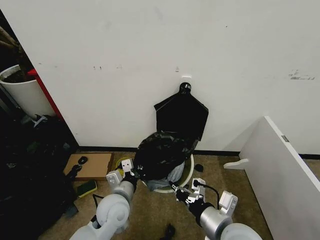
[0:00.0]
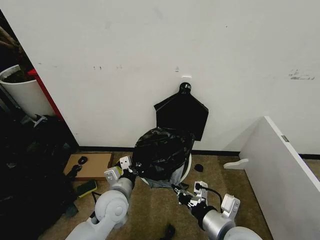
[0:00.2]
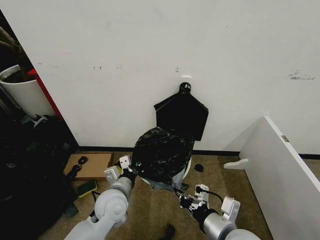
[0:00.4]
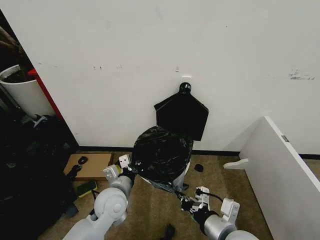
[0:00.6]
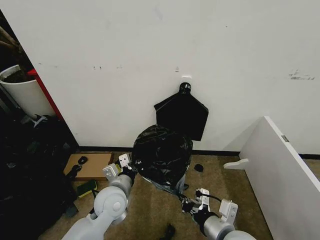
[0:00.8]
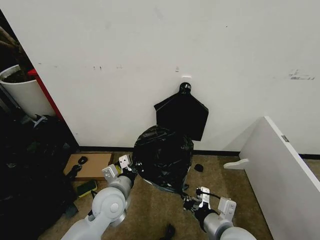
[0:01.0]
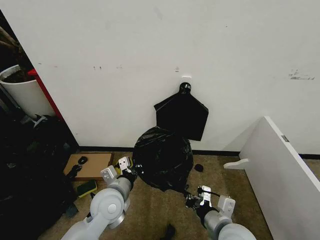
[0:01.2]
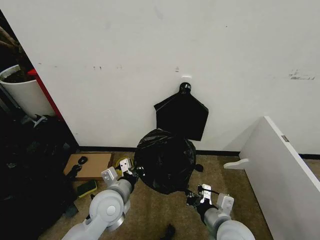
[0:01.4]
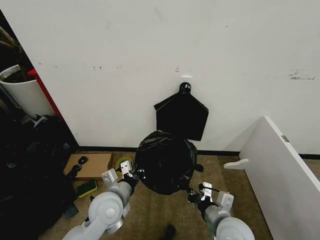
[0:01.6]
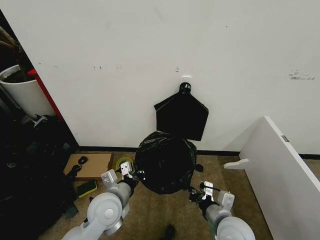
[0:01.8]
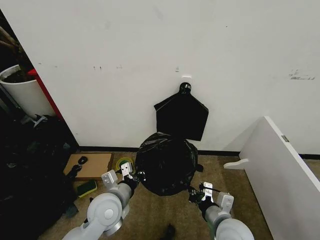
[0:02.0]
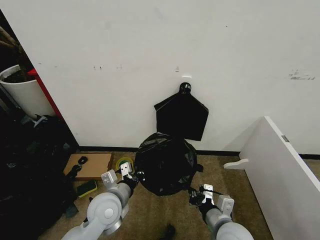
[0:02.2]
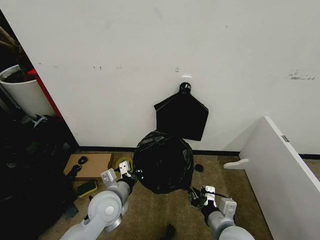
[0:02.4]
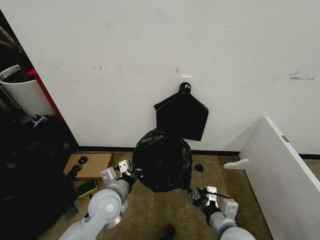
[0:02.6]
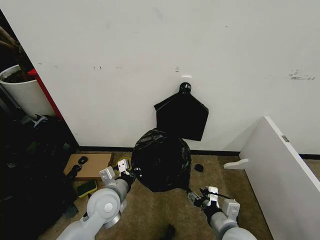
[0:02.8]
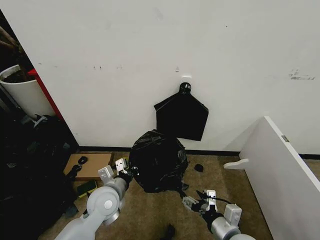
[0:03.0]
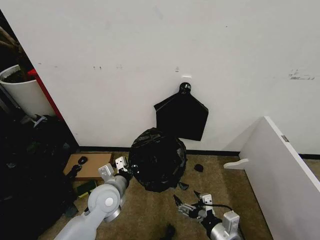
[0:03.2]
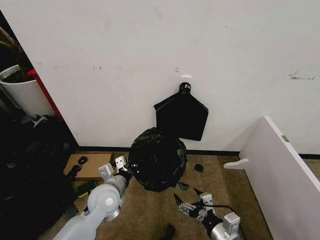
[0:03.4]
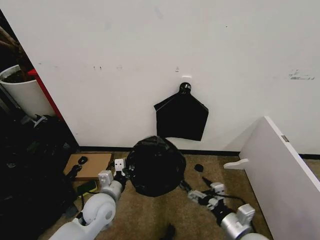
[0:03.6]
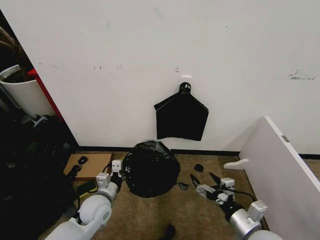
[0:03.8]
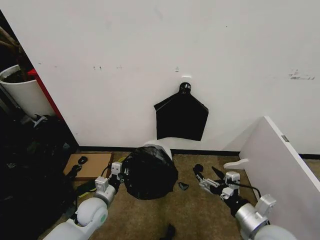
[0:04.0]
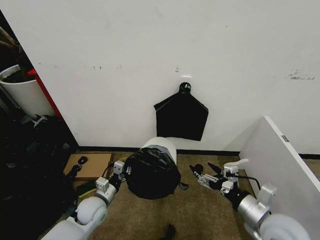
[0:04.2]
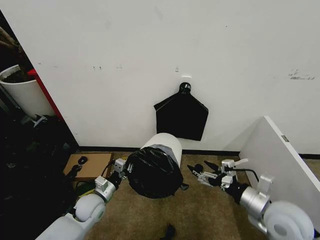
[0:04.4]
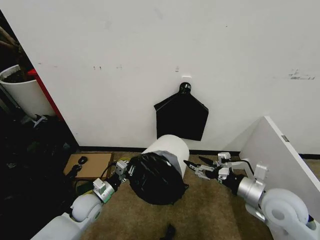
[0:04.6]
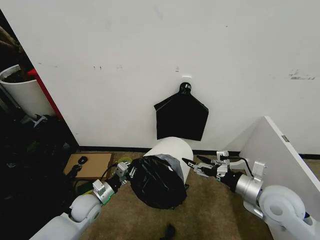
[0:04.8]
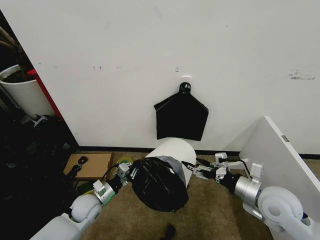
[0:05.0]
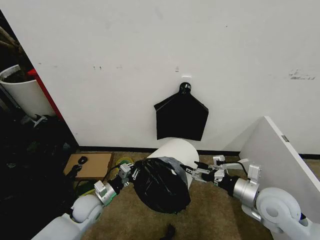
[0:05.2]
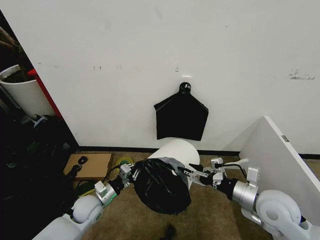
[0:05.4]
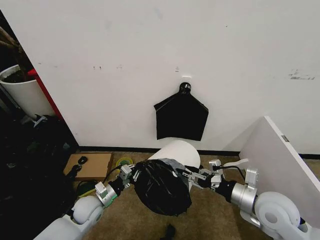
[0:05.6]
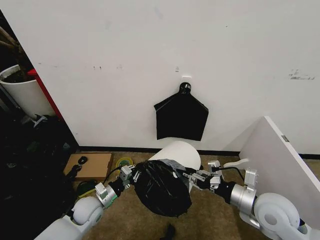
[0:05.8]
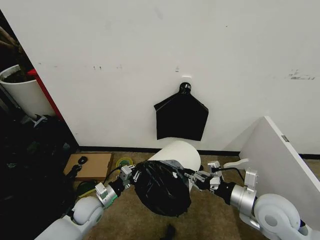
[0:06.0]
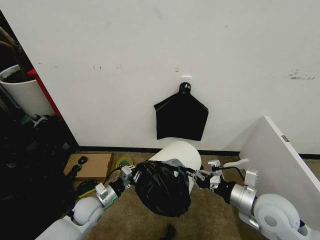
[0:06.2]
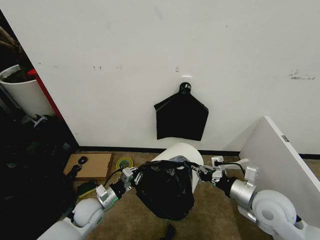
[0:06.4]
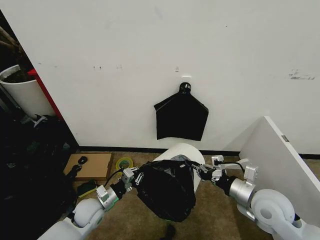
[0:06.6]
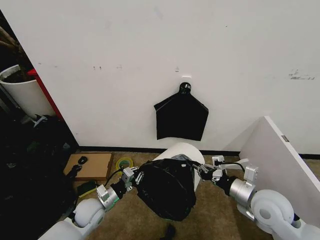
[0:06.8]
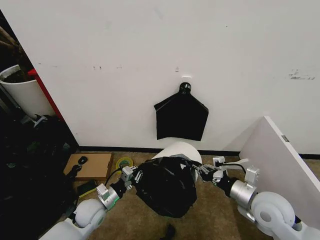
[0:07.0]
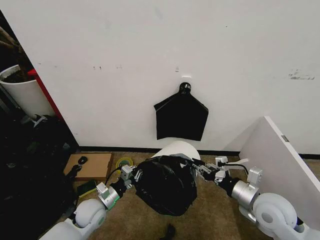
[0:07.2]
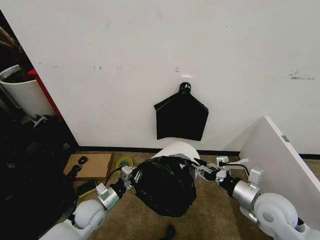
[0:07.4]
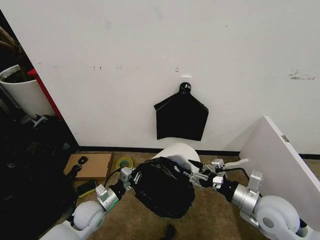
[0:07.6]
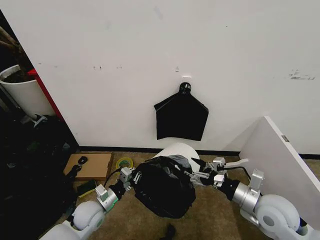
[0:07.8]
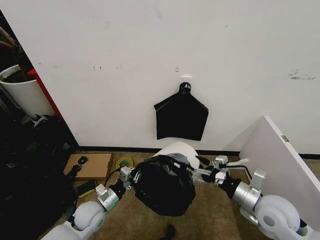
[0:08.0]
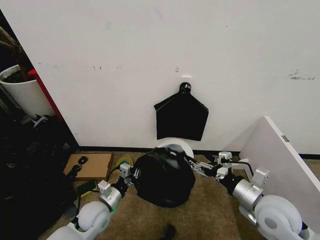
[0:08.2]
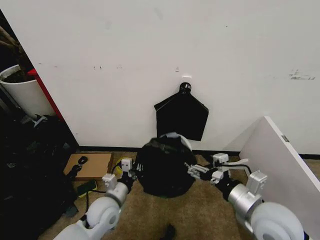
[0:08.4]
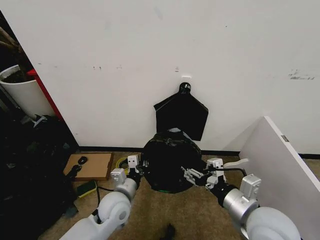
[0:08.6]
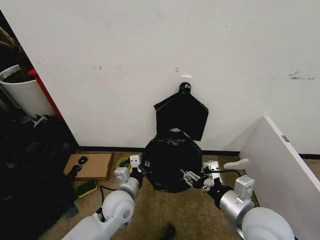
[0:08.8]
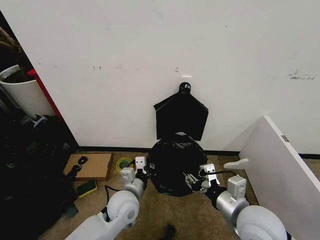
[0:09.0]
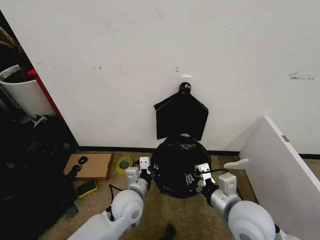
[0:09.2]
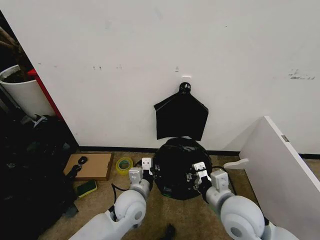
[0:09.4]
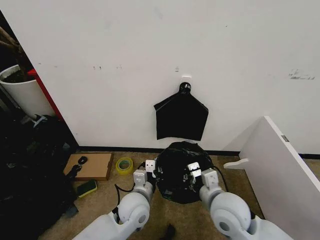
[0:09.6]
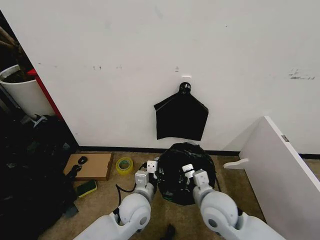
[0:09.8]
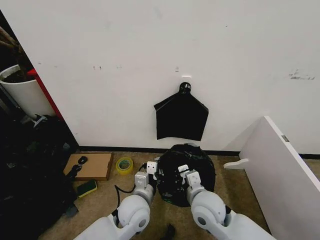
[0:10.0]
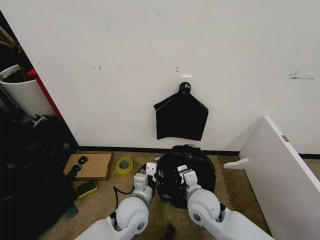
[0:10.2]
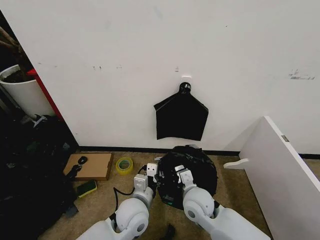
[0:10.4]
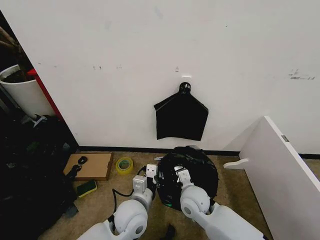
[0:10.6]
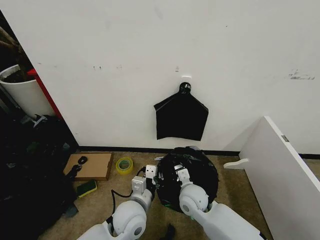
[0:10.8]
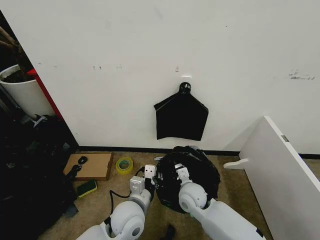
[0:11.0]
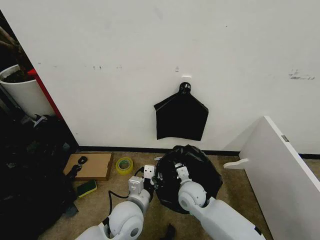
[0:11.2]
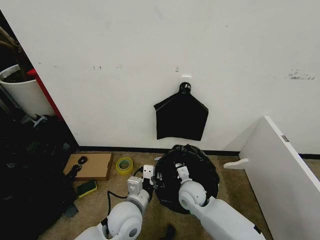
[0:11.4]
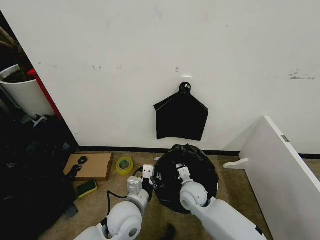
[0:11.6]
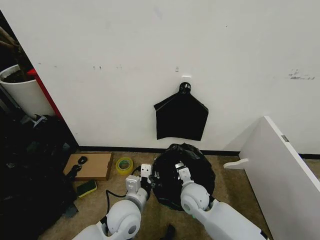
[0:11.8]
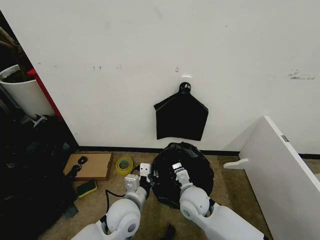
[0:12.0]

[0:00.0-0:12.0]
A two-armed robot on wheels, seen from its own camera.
Task of the whole recording: Place the garbage bag over the trash bin.
0:00.0 to 0:01.6: The right gripper moves downward, some 10 cm.
0:01.6 to 0:03.0: The right gripper opens up.
0:03.0 to 0:04.4: The left gripper shifts roughly 15 cm downward and to the left. The right gripper heads to the right, upward and forward, covering roughly 15 cm.
0:04.4 to 0:06.0: The right gripper closes its fingers.
0:06.0 to 0:07.6: The right gripper opens.
0:07.6 to 0:09.0: The right gripper goes approximately 10 cm to the left, and closes; the left gripper shifts roughly 15 cm to the right and upward.
0:09.0 to 0:10.4: The right gripper goes approximately 15 cm to the left, downward and forward.

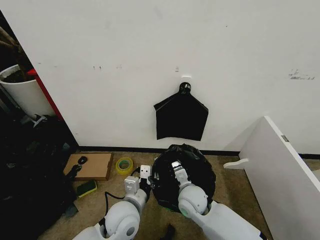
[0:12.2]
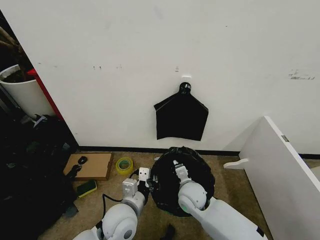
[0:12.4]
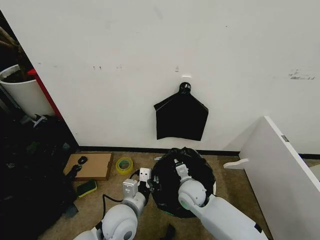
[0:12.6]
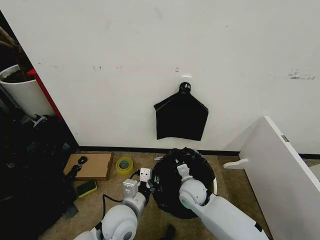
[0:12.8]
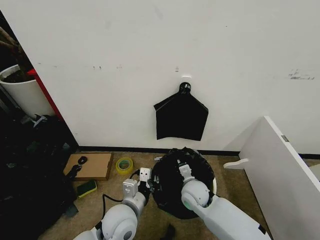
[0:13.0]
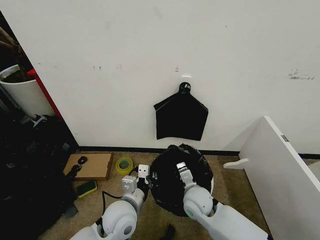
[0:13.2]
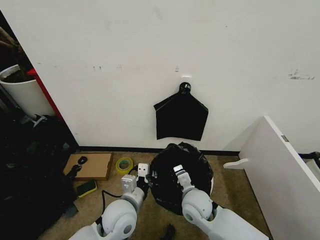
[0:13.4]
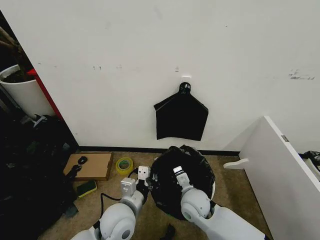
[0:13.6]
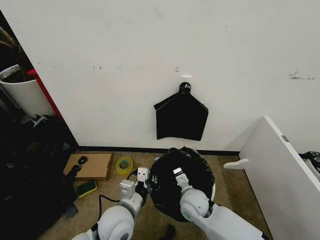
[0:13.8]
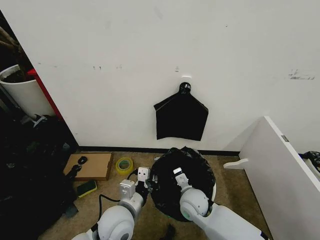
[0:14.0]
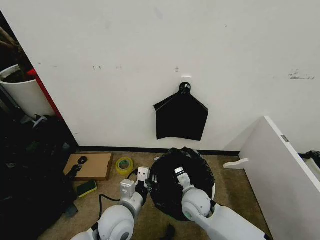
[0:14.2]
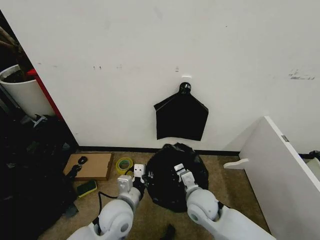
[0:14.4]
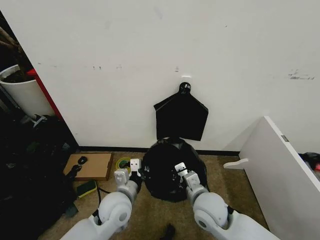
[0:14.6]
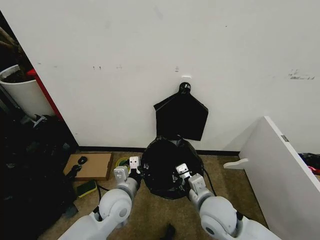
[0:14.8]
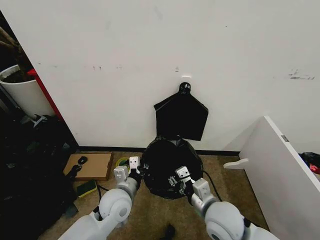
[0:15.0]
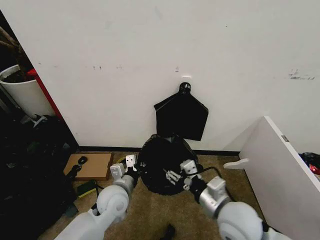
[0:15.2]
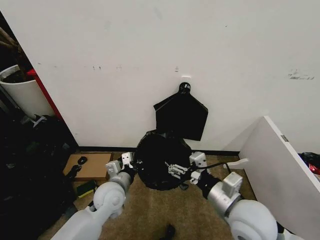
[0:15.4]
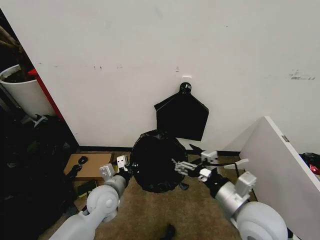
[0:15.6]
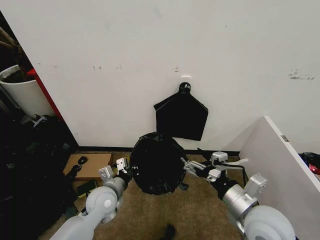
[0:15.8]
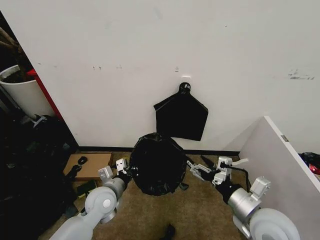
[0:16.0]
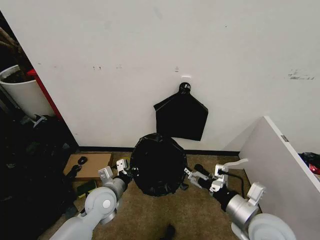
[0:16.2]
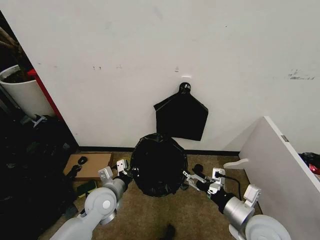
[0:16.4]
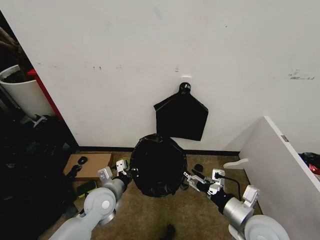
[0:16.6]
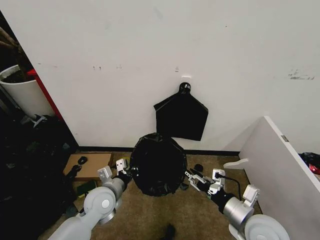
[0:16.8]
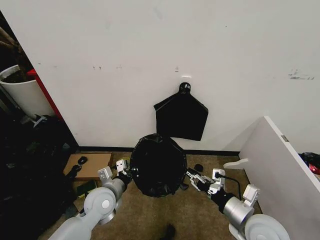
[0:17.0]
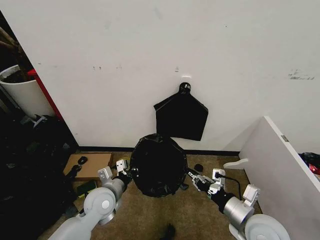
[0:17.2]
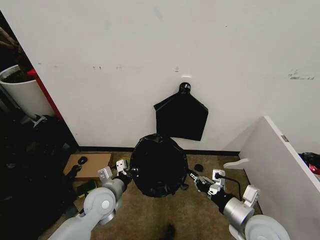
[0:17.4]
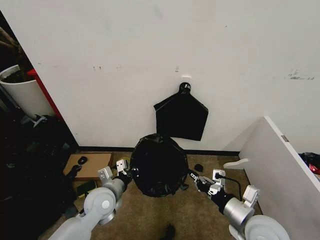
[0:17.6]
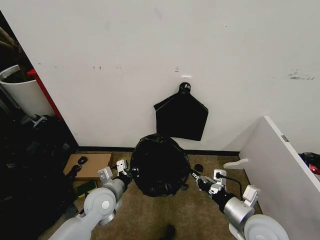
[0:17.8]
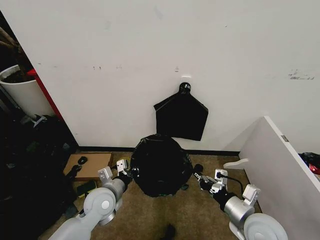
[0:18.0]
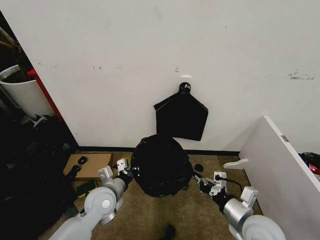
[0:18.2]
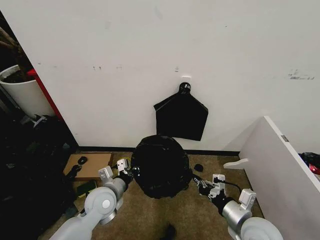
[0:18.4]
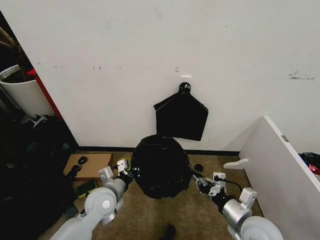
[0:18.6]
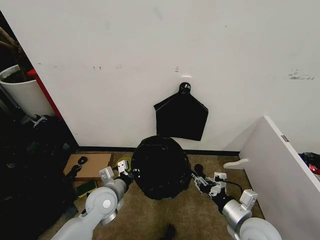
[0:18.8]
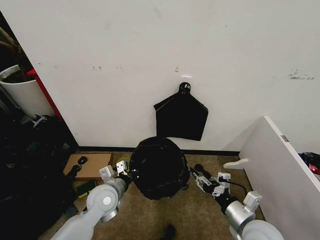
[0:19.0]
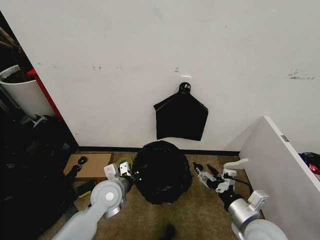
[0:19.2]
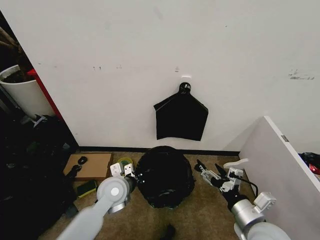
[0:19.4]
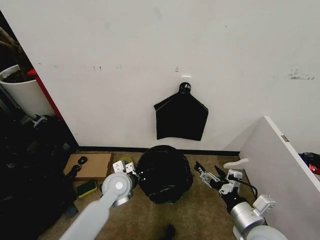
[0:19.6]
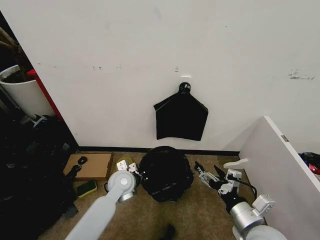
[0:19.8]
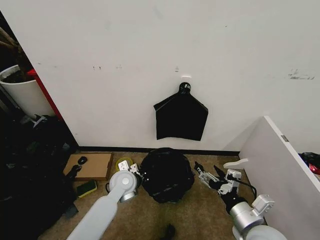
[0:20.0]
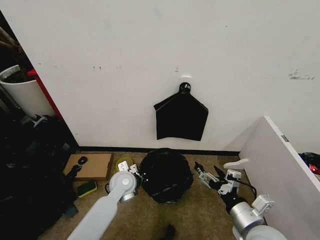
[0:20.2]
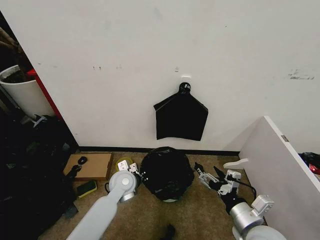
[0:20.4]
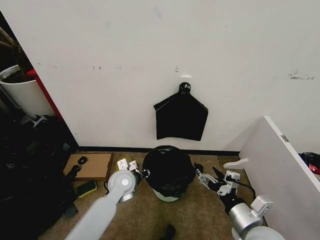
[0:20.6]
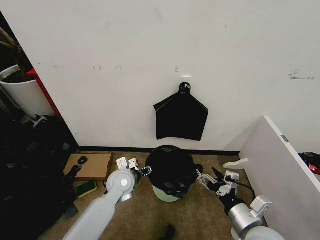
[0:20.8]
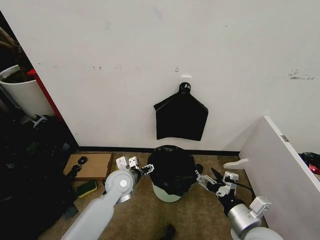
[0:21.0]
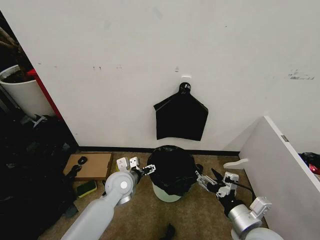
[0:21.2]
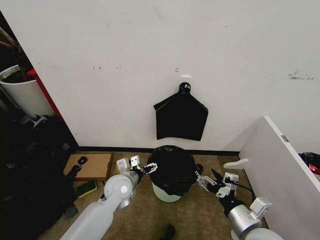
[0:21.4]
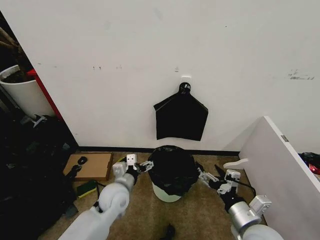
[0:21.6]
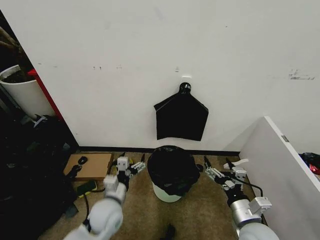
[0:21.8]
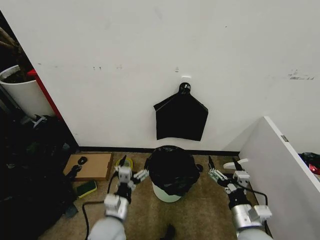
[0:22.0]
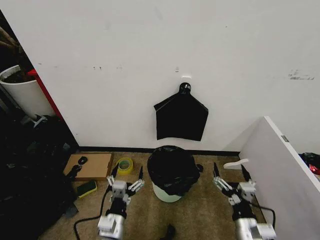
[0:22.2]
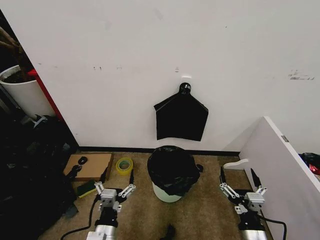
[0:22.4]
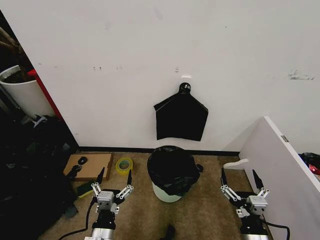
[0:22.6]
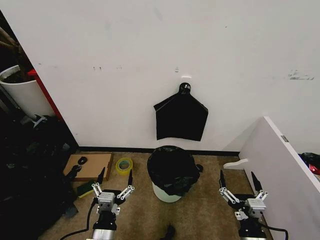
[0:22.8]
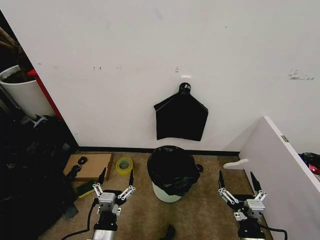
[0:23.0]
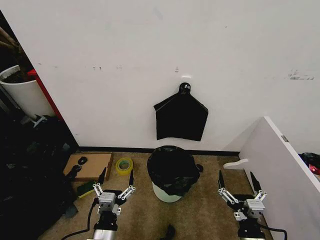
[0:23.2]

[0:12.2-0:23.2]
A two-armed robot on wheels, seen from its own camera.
Task of the whole recording: Place the garbage bag over the trash bin.
0:12.2 to 0:13.8: The grippers move only a little.
0:13.8 to 0:15.4: The left gripper goes about 10 cm forward. Meanwhile the right gripper heads upward, to the right and backward, covering roughly 20 cm, and opens up.
0:15.4 to 0:17.0: The right gripper moves downward and to the right, roughly 10 cm, and closes.
0:17.0 to 0:18.4: The right gripper closes up.
0:18.4 to 0:20.0: The left gripper is displaced forward and to the right by approximately 10 cm, while the right gripper opens up.
0:20.0 to 0:21.6: The left gripper moves backward, approximately 5 cm, and opens.
0:21.6 to 0:23.2: The right gripper heads backward and downward, covering roughly 10 cm. Meanwhile the left gripper shifts about 20 cm backward.
